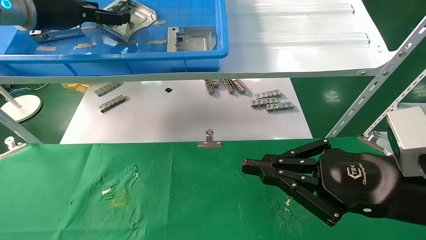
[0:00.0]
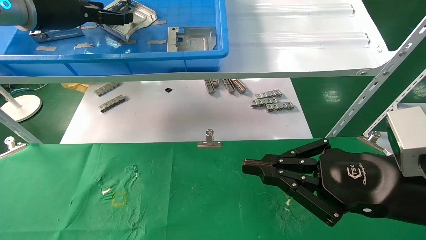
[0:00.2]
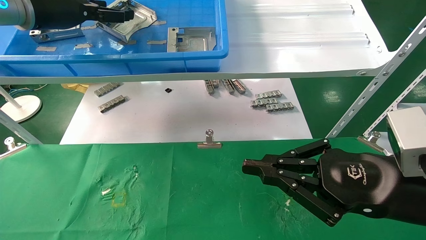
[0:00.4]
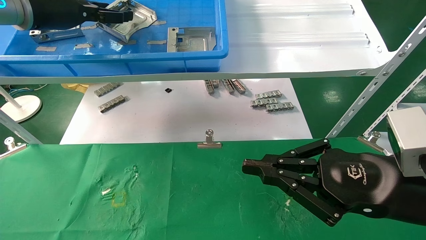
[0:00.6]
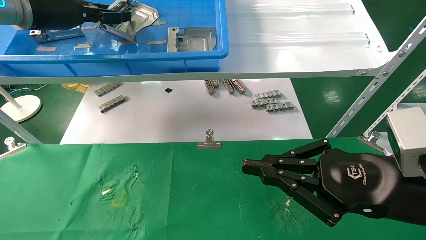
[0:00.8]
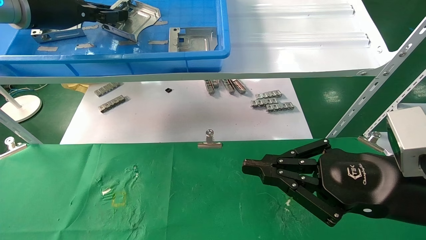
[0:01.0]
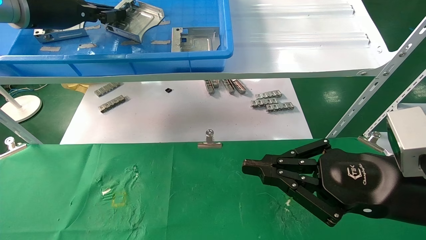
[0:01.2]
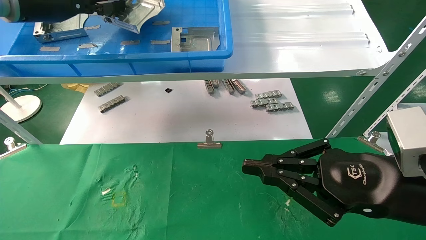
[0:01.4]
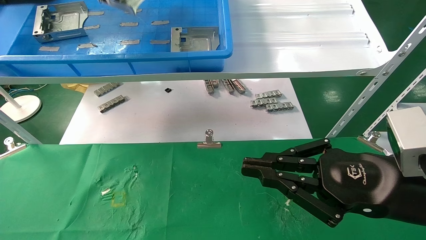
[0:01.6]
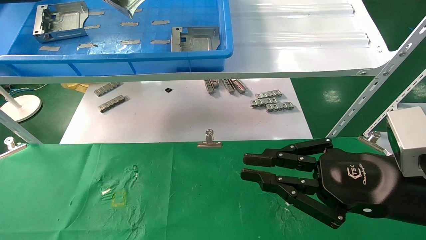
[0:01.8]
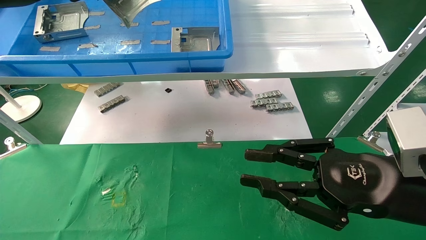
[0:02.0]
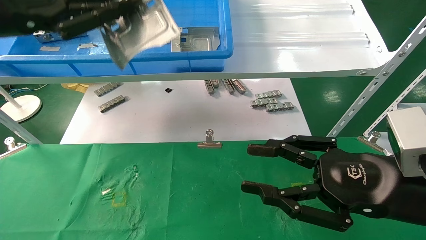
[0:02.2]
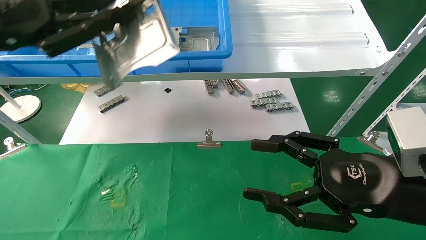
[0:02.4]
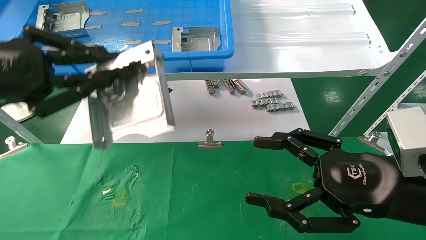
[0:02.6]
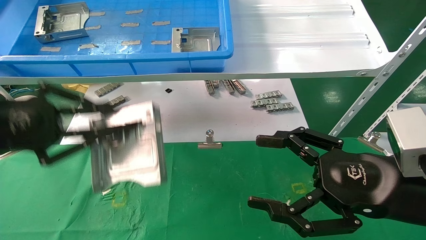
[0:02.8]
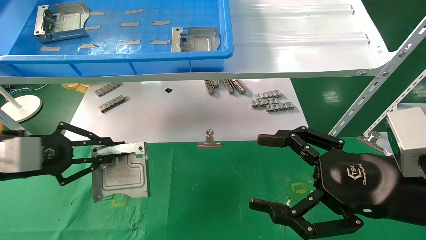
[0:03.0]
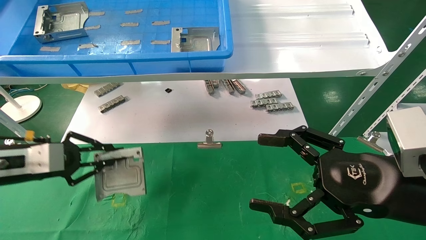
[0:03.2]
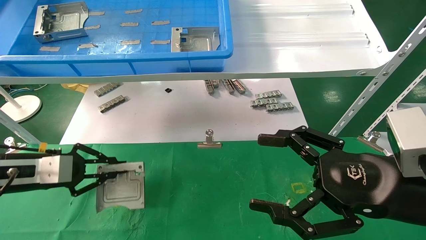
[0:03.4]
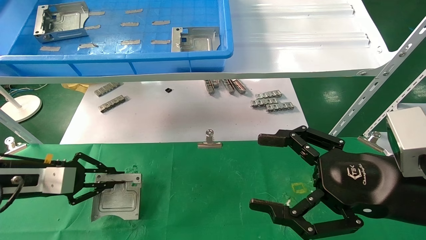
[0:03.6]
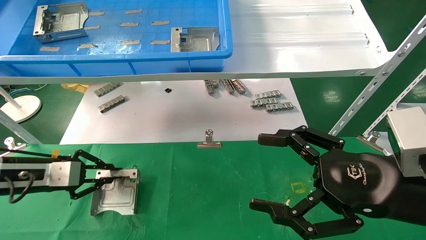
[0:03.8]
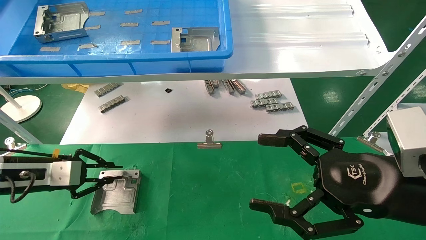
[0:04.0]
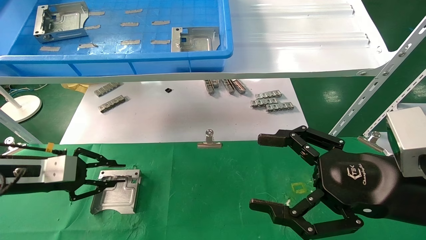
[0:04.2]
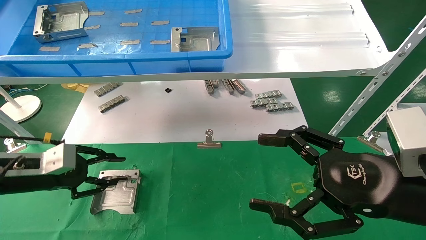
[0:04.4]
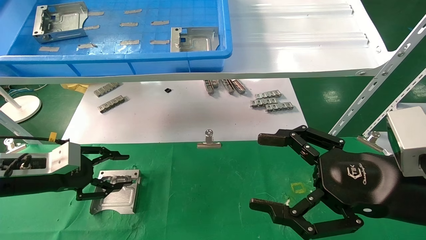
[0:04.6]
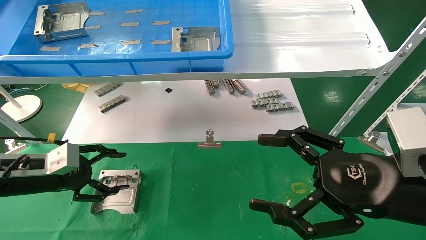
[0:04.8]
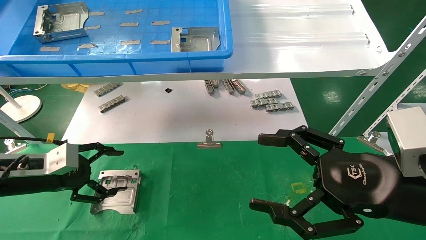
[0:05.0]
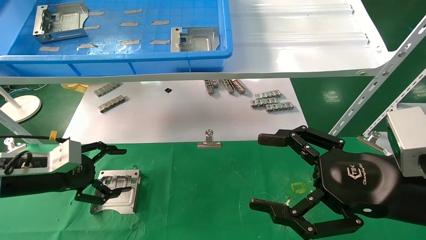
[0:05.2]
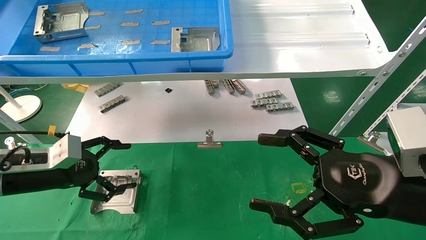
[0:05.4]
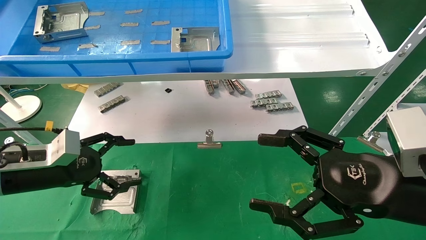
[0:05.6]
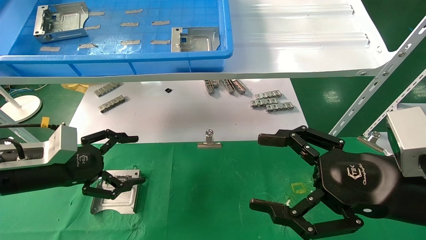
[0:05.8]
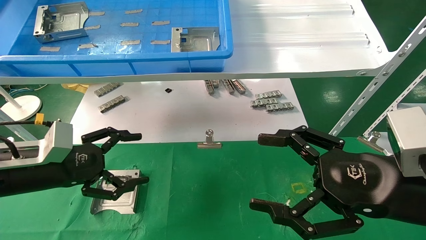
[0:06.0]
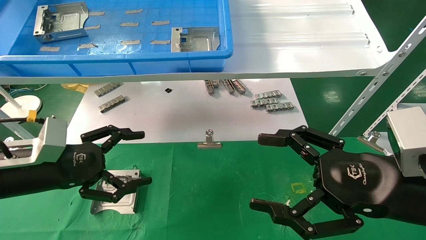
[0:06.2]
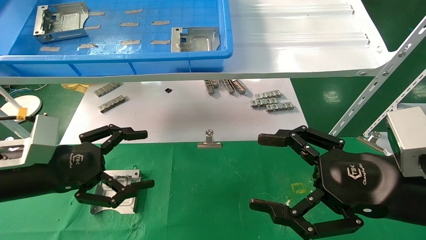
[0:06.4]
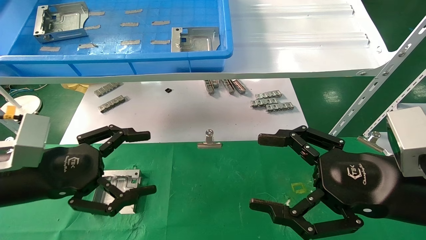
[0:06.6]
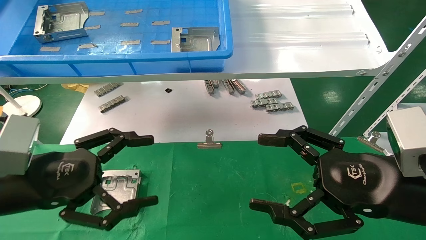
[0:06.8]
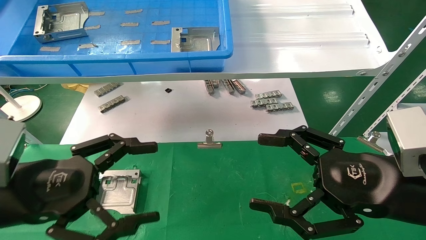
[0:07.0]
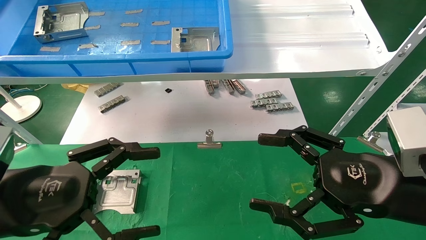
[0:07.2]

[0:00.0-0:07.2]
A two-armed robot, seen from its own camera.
Task of the whole recording: use the mechanical arm to pick up the parts and place them on the table.
Step, 0:01.2 to 0:04.2: Place the hard drive bracket into the box.
0:00.0 to 0:01.4: The left gripper closes.
0:01.4 to 0:02.8: The right gripper opens; the left gripper heads downward and backward, covering roughly 20 cm.
0:02.8 to 0:04.4: The left gripper moves downward and forward, about 15 cm.
0:04.4 to 0:05.8: The left gripper ends up approximately 5 cm from where it was, and opens its fingers.
0:05.8 to 0:07.2: The left gripper moves backward and to the right, roughly 15 cm.

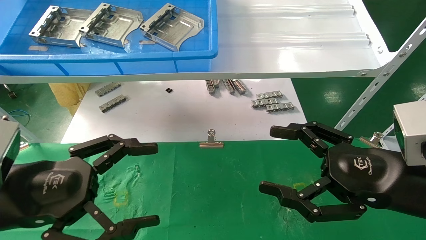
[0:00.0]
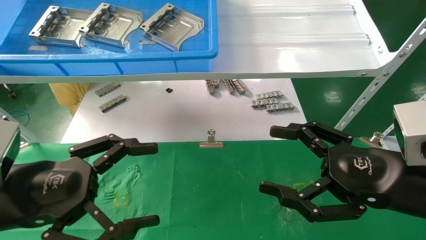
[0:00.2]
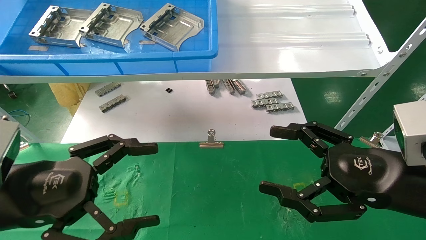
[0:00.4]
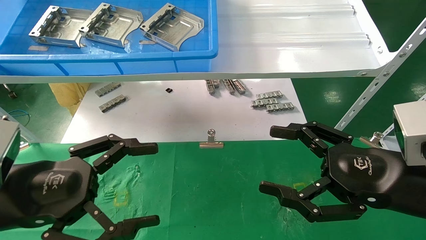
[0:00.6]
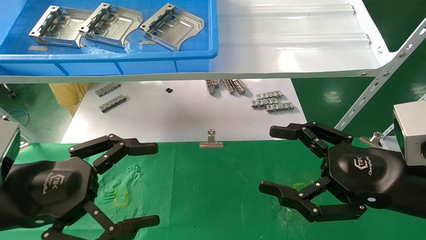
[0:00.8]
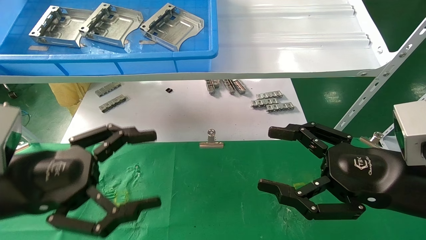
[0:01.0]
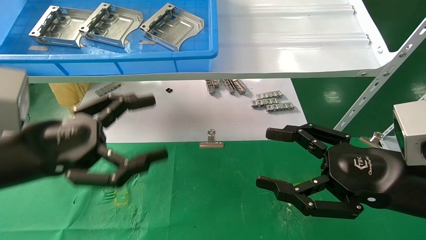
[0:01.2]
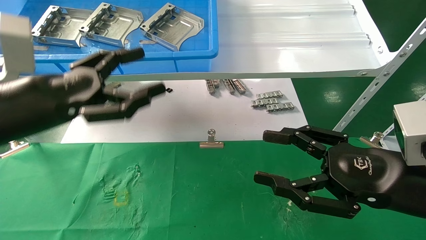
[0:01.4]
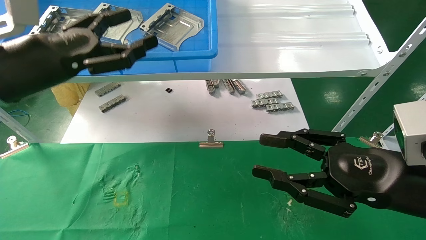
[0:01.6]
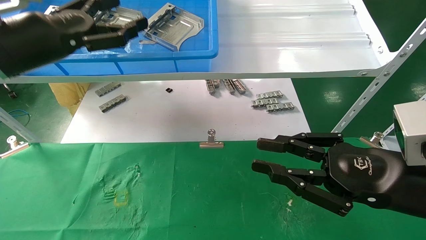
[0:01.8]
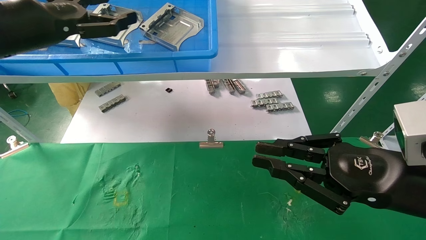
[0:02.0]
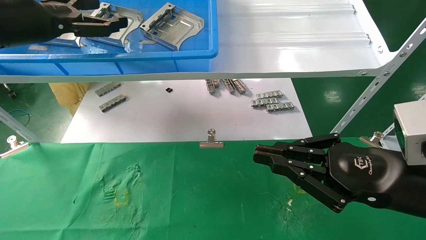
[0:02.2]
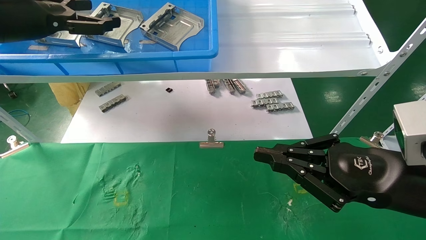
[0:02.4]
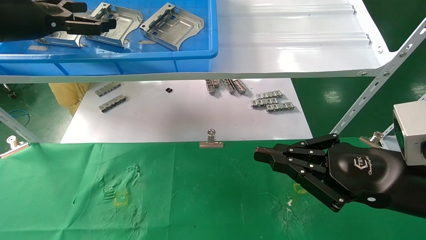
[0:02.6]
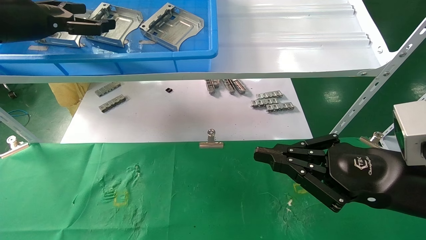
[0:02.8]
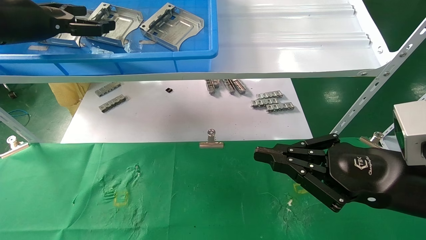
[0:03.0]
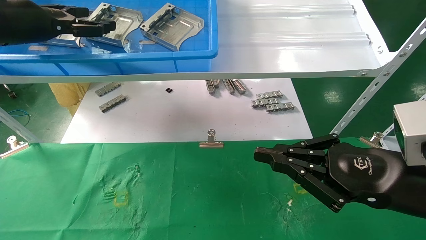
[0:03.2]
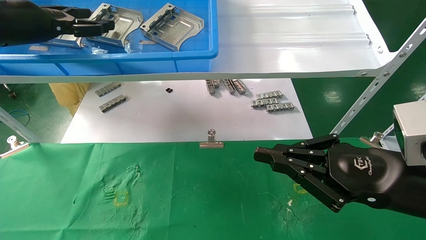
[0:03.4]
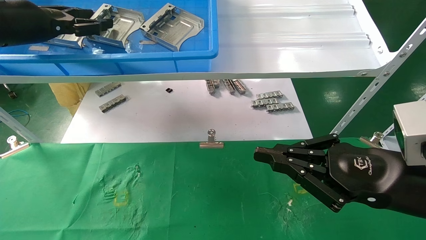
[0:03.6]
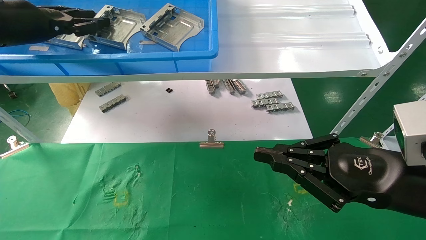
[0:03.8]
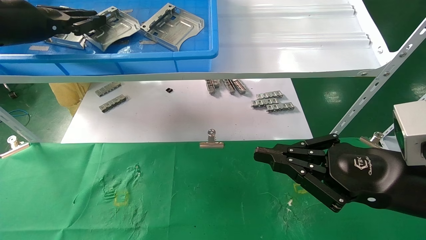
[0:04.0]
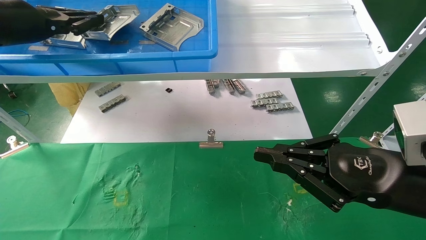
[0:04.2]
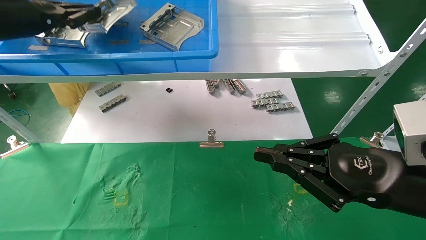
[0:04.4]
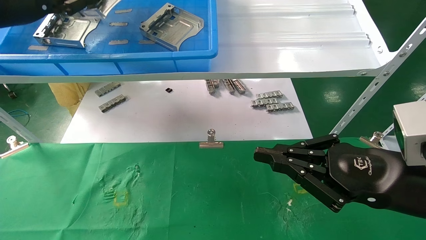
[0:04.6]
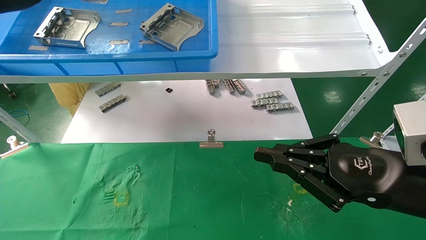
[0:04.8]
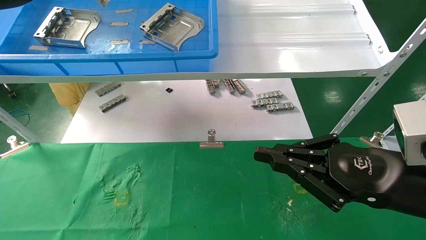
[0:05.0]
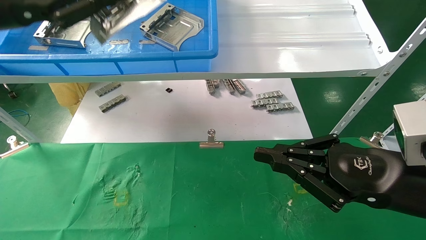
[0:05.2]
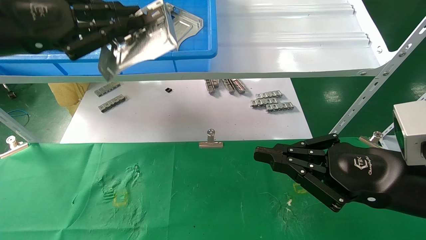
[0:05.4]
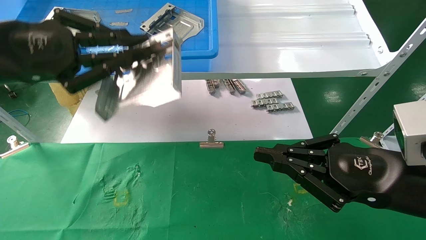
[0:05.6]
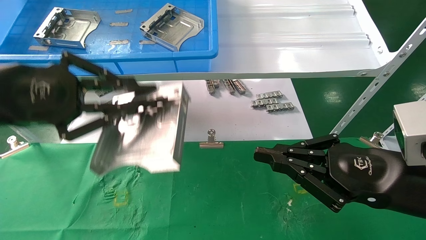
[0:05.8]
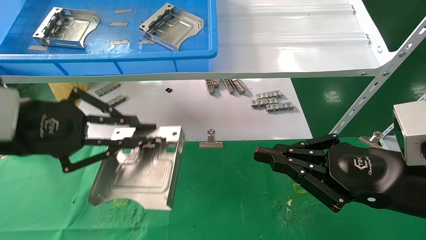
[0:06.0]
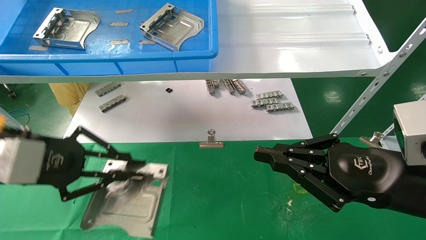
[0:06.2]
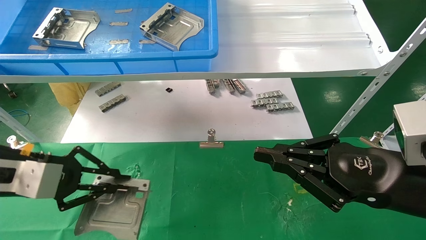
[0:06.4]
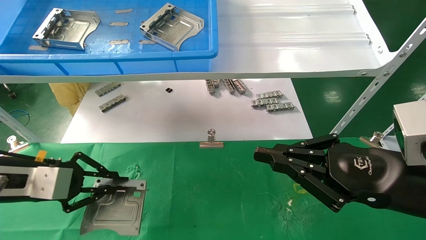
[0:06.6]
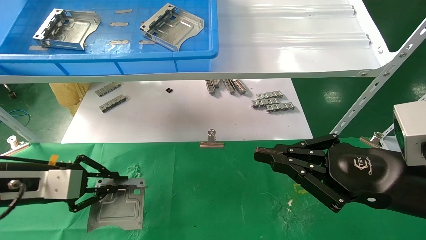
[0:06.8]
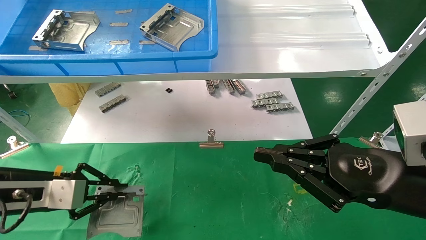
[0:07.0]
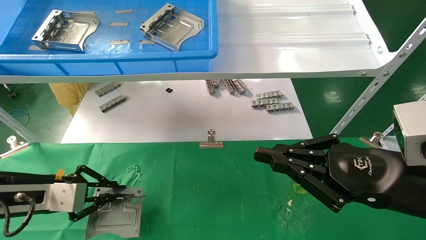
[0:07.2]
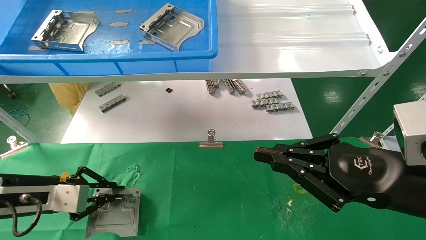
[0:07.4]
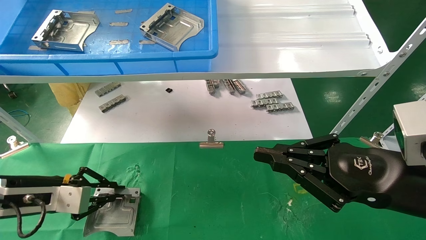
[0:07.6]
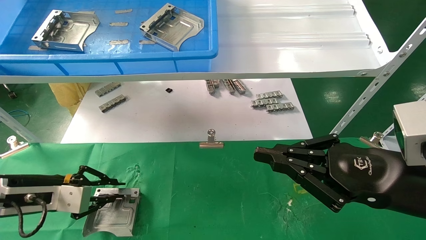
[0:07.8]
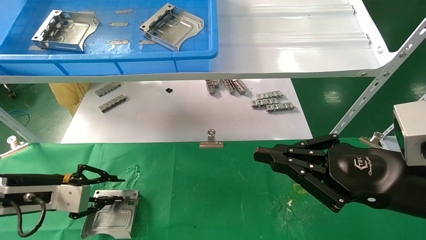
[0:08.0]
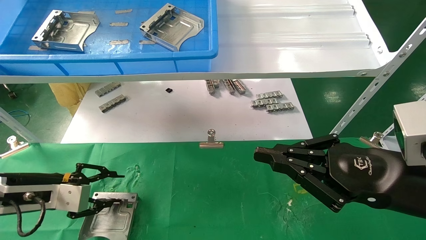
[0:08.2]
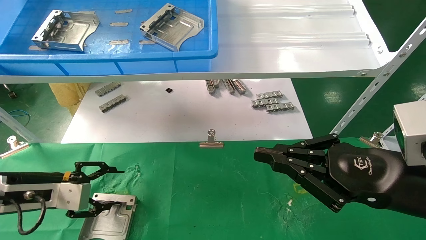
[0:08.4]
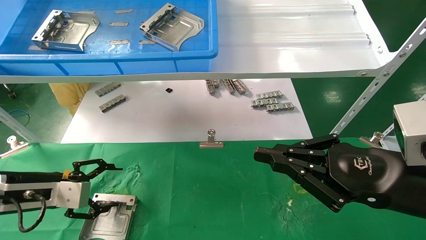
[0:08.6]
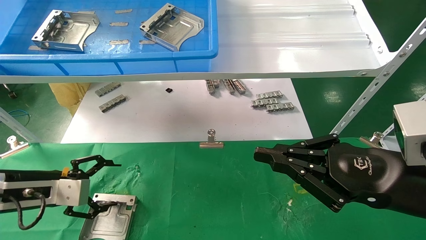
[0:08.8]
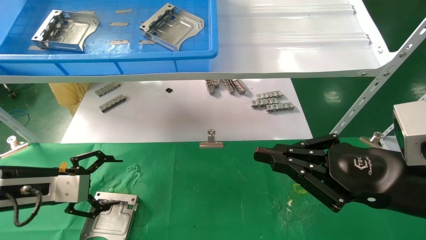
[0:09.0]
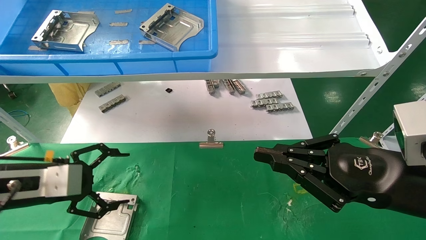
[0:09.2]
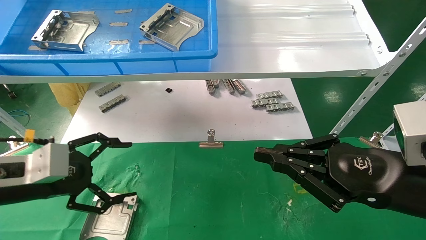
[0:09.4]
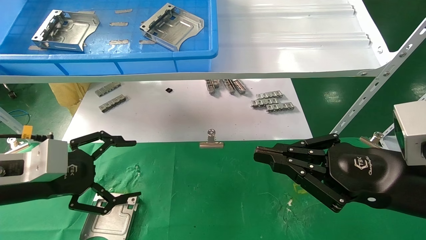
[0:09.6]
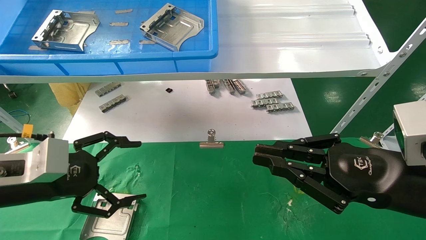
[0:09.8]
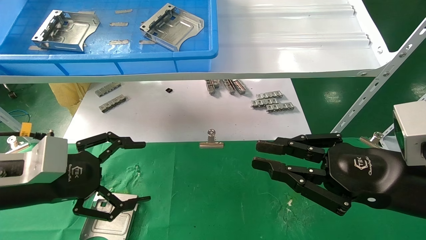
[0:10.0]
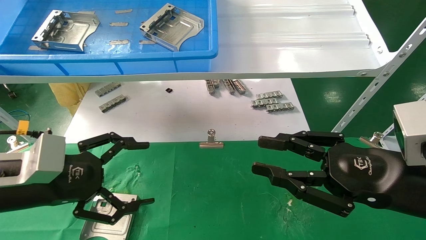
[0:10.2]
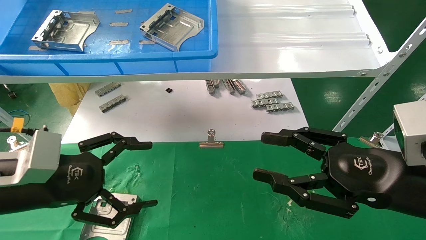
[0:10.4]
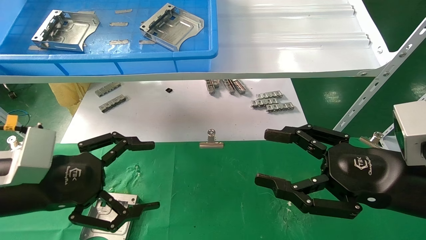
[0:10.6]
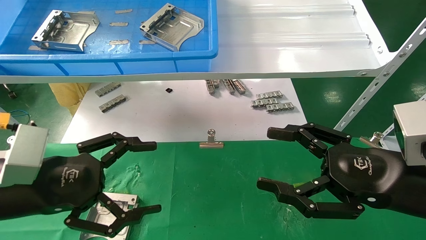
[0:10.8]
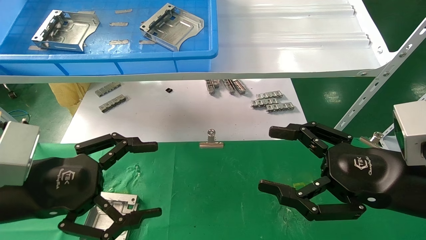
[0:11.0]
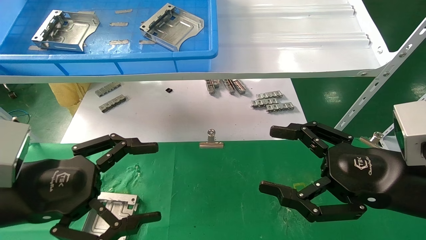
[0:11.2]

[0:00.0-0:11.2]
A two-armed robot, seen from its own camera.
Task of the whole recording: use the mechanical arm to pick up the parts and place them on the table.
Step, 0:01.4 to 0:04.0: Pick up the hard drive bracket from the feeding area.
Step, 0:04.2 to 0:08.0: Place the hard drive bracket into the box.
0:00.0 to 0:01.6: The right gripper closes up; the left gripper moves upward and forward, about 15 cm.
0:01.6 to 0:03.2: The left gripper is displaced forward, upward and to the left by approximately 15 cm. The right gripper closes.
0:03.2 to 0:04.8: The left gripper moves approximately 5 cm, and closes up.
0:04.8 to 0:06.4: The left gripper heads downward, covering roughly 25 cm.
0:06.4 to 0:08.0: The left gripper travels downward by about 10 cm.
0:08.0 to 0:09.6: The left gripper travels upward and backward by approximately 10 cm, and opens up.
0:09.6 to 0:11.2: The left gripper is displaced backward by approximately 5 cm; the right gripper opens its fingers.
